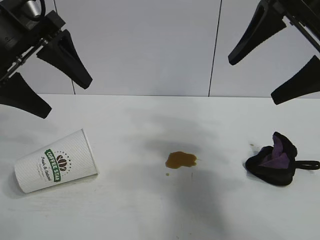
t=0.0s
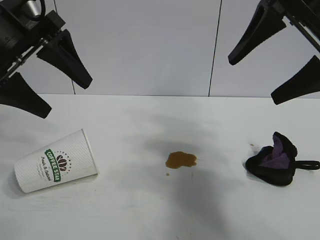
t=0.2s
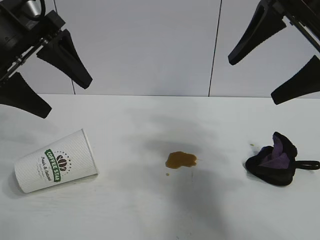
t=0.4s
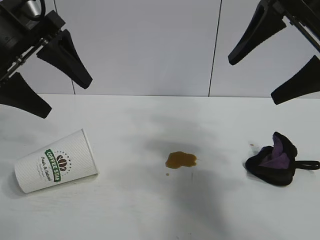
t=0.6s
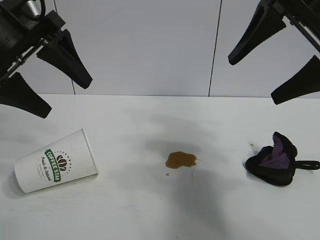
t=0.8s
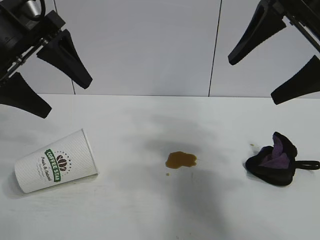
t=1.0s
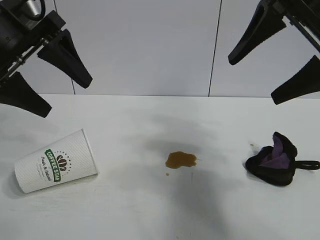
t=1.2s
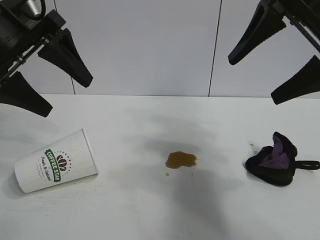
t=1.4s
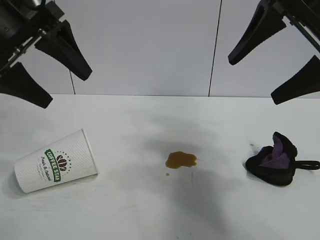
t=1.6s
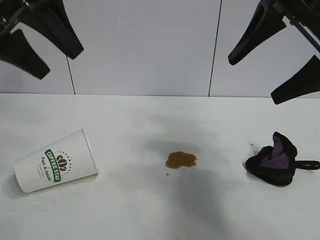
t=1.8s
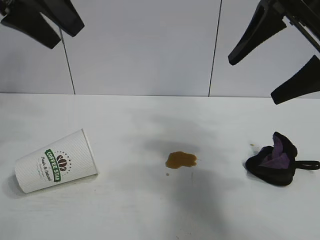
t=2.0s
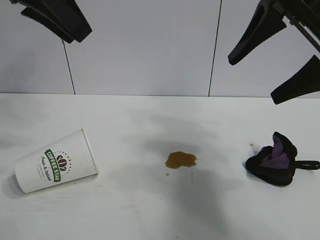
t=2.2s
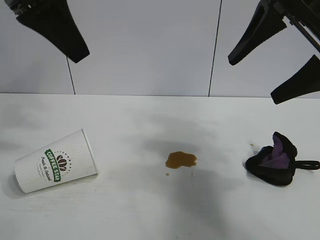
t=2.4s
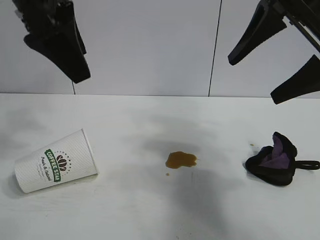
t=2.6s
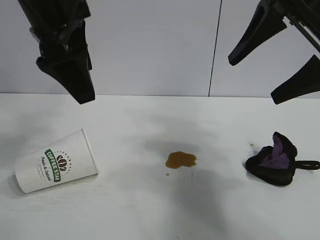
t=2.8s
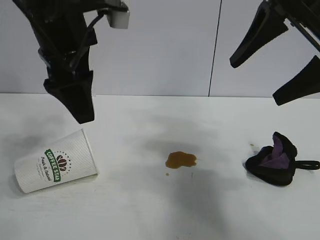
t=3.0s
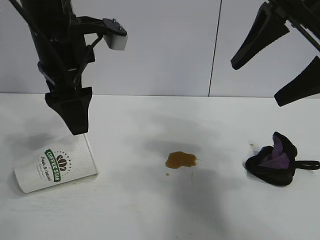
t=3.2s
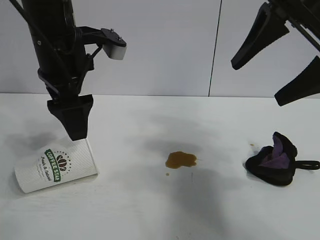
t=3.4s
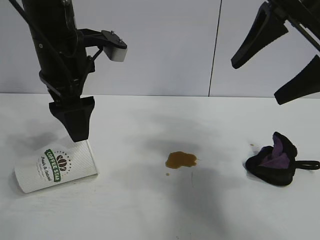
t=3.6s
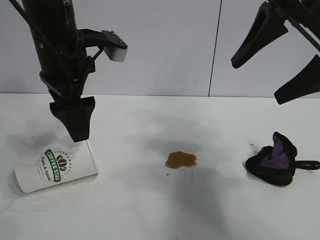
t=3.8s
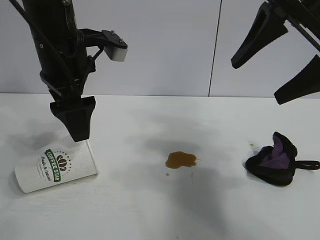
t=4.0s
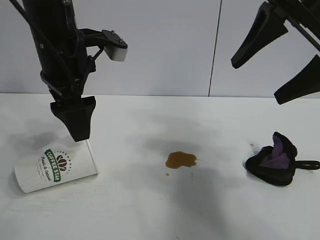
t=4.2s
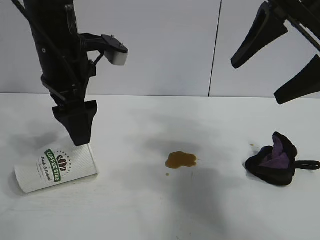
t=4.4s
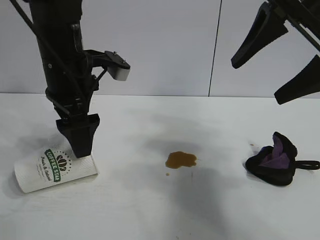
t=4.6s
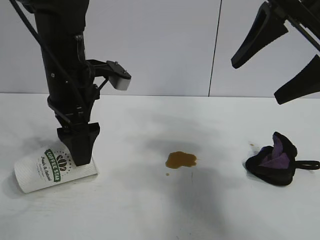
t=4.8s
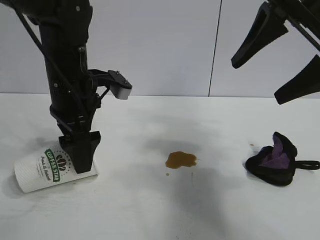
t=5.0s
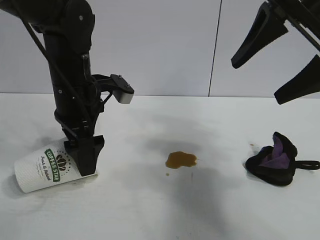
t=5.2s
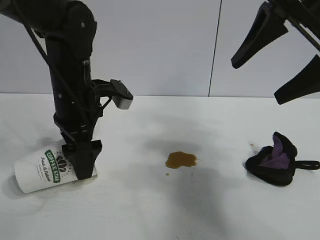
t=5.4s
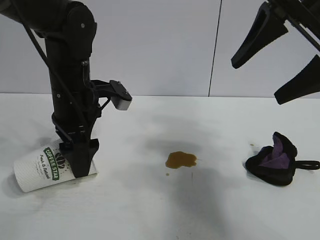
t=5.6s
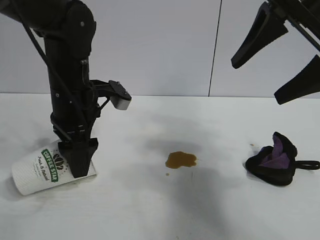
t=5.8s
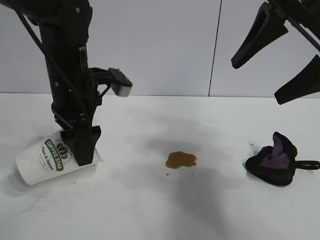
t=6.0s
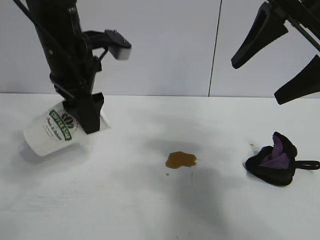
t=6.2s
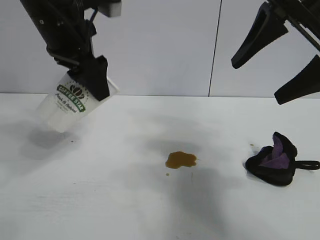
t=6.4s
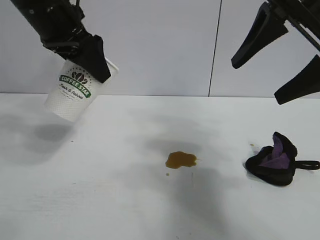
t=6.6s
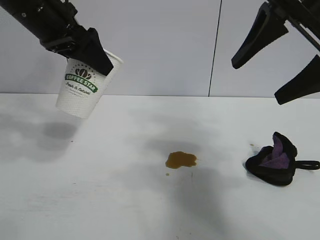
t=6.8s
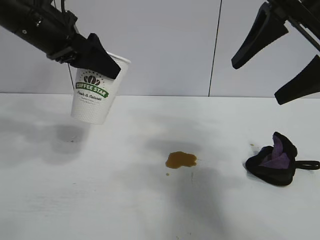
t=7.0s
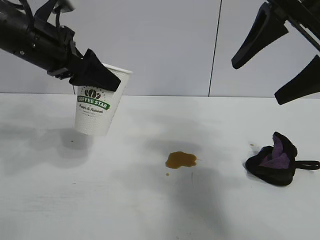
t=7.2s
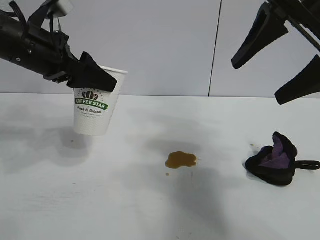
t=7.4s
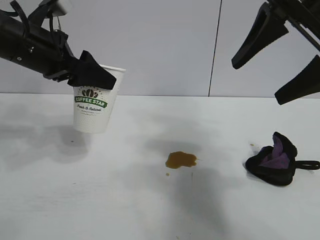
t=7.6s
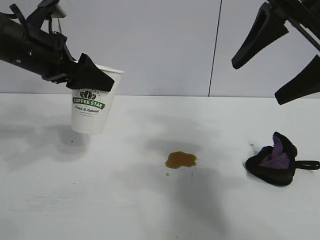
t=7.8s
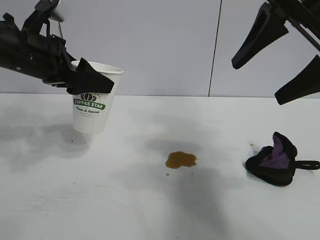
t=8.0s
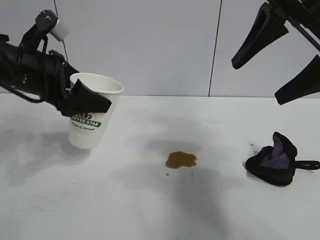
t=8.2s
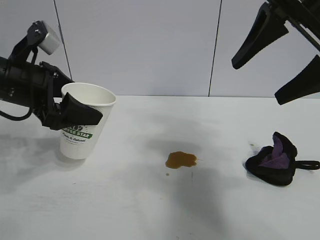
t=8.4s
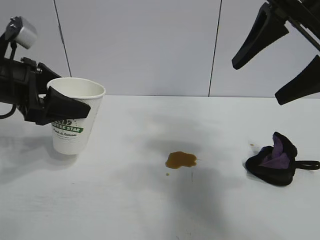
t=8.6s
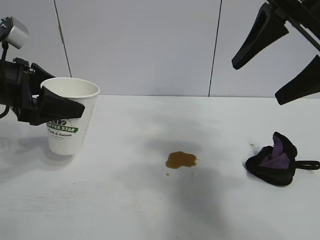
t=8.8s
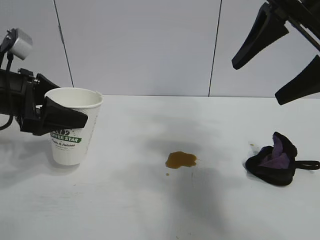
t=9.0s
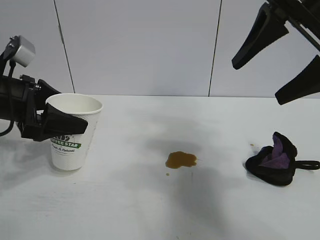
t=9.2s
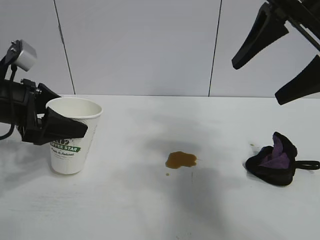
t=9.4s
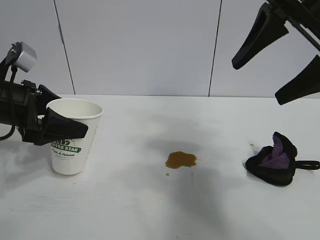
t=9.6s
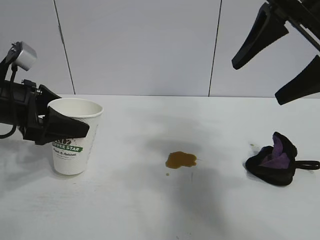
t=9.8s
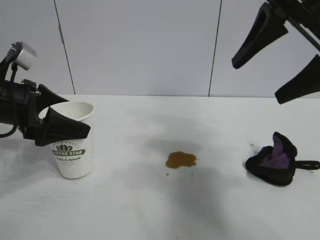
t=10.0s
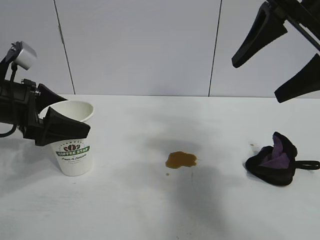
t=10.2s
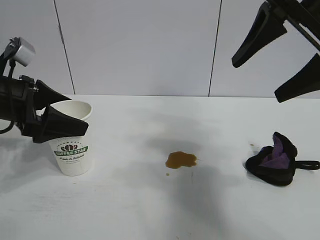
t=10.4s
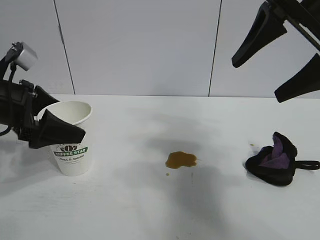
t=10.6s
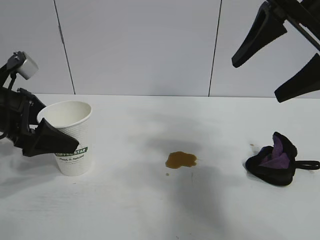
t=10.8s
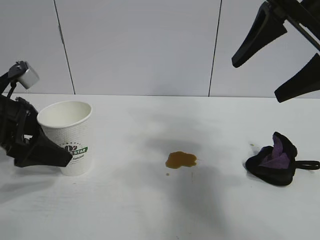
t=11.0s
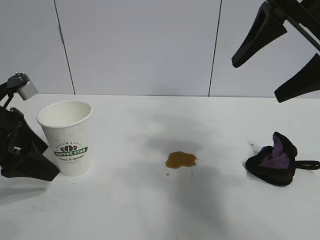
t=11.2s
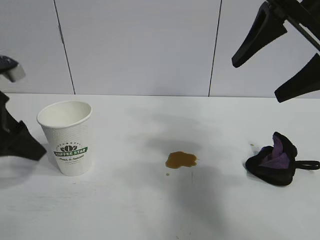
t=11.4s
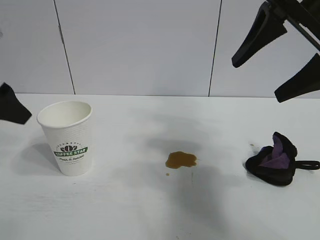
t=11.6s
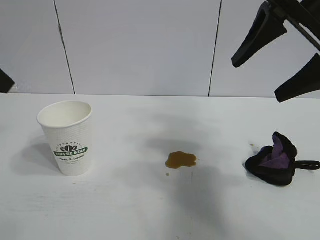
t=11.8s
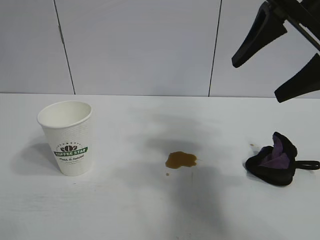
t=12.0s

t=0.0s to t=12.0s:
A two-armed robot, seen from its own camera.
Task of the whole recording: the left gripper pick up the fallen cup and place it upright, the right gripper grasp the black rag and wipe the stain on the table, the right gripper put the black rag back in its original position.
Step, t=1.4s to t=5.6s: Grasp the paper cup with left gripper.
Step, t=5.8s to t=10.4s: Stand the paper cup upright with left gripper.

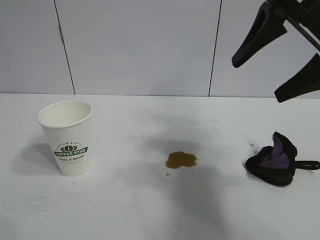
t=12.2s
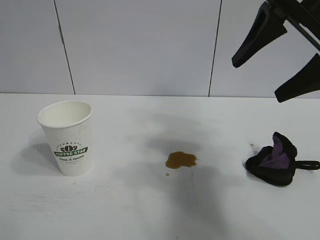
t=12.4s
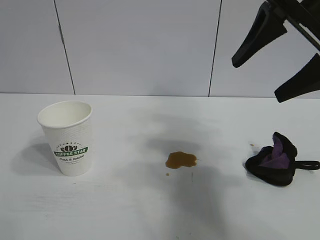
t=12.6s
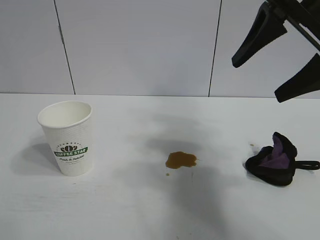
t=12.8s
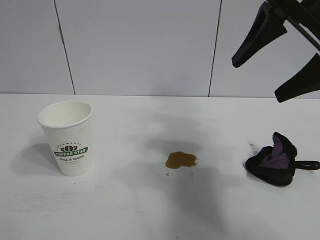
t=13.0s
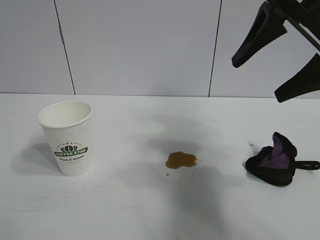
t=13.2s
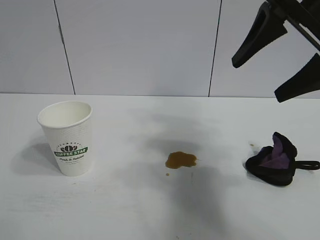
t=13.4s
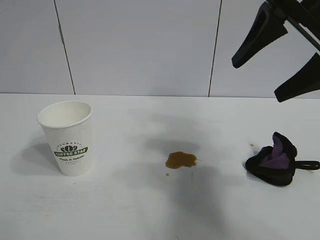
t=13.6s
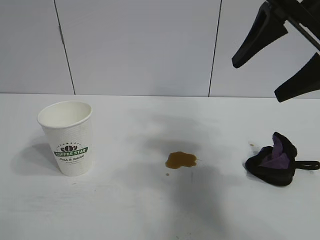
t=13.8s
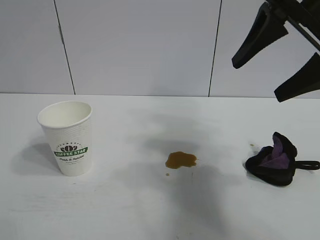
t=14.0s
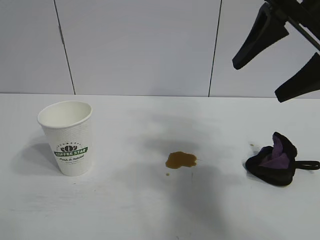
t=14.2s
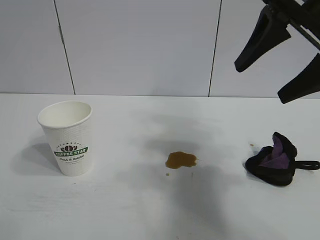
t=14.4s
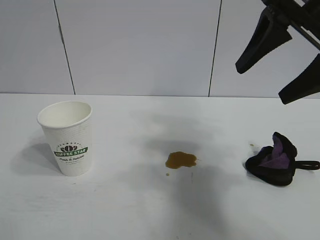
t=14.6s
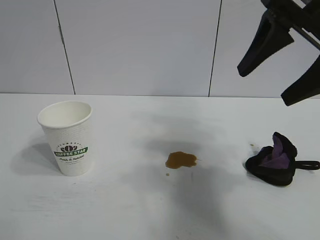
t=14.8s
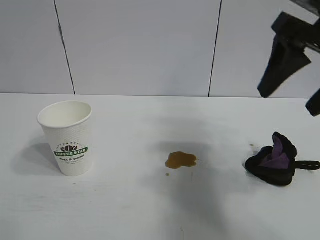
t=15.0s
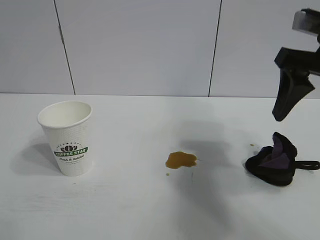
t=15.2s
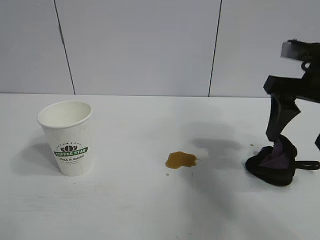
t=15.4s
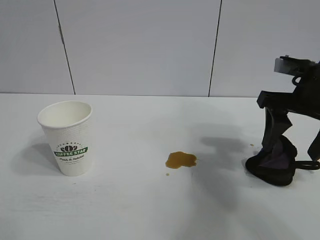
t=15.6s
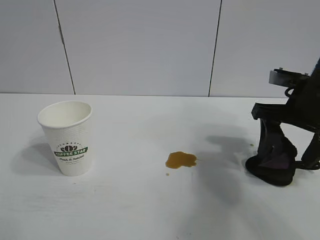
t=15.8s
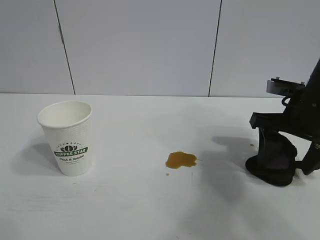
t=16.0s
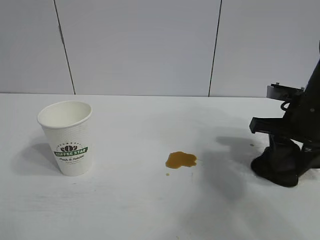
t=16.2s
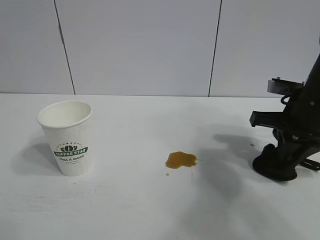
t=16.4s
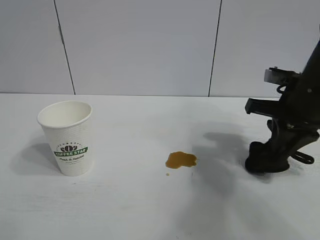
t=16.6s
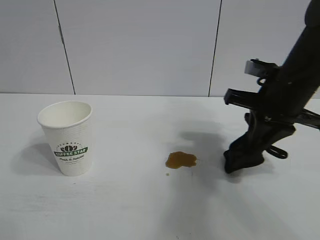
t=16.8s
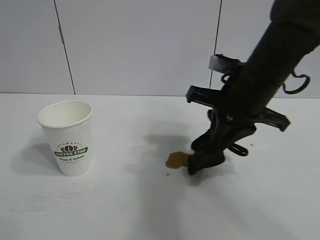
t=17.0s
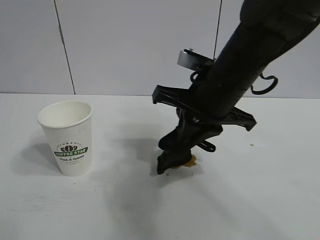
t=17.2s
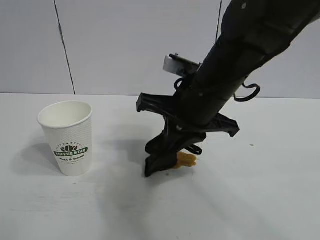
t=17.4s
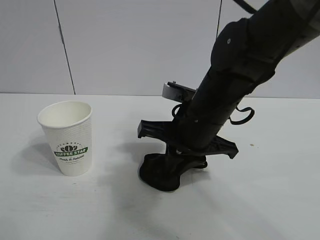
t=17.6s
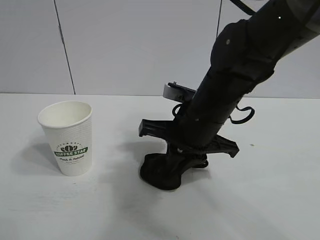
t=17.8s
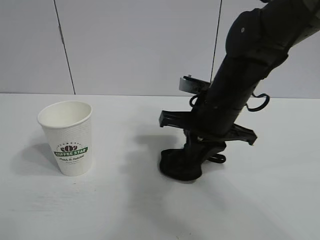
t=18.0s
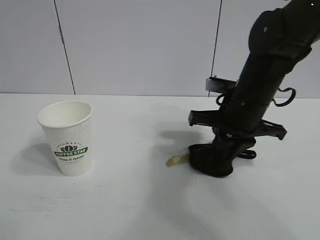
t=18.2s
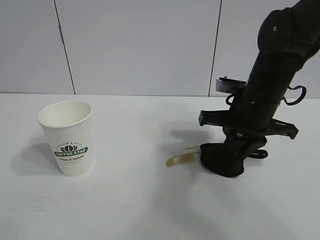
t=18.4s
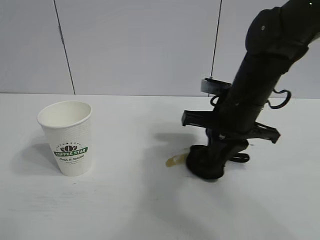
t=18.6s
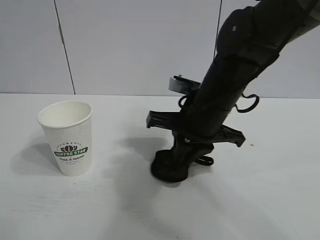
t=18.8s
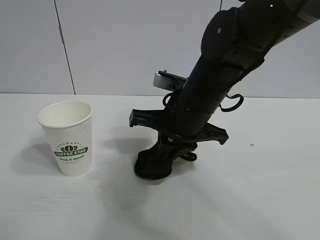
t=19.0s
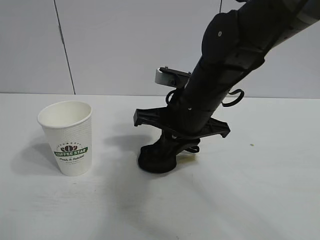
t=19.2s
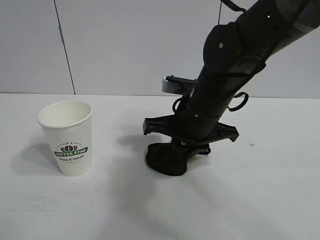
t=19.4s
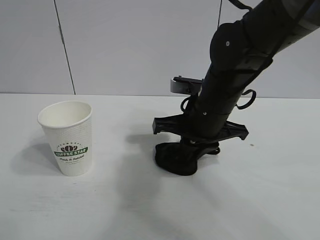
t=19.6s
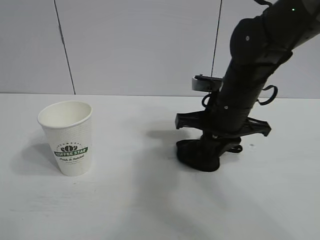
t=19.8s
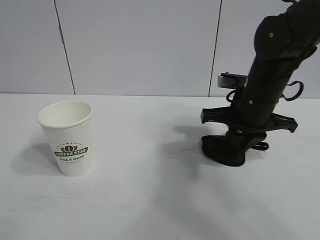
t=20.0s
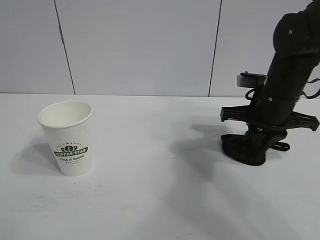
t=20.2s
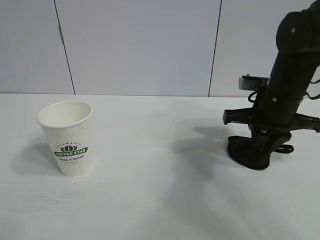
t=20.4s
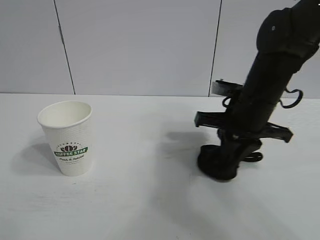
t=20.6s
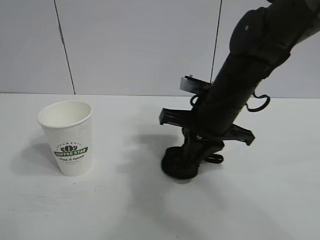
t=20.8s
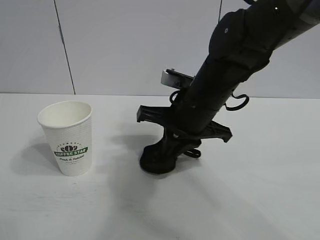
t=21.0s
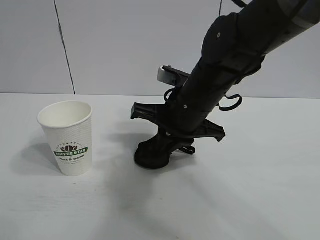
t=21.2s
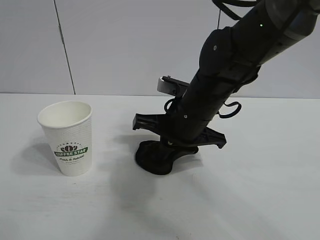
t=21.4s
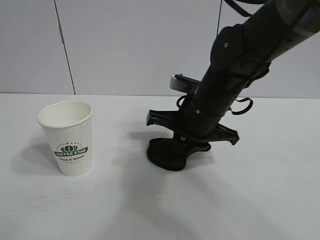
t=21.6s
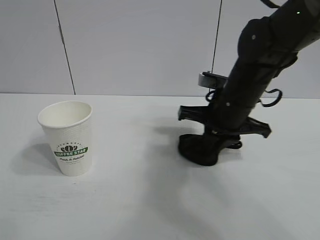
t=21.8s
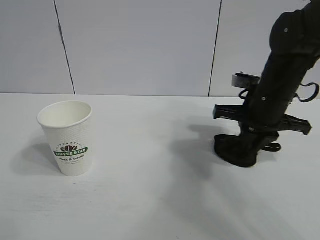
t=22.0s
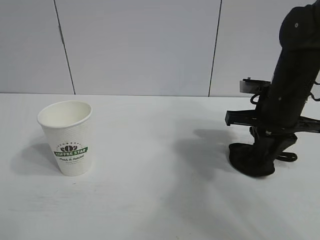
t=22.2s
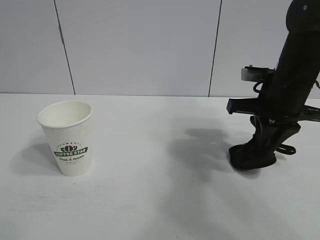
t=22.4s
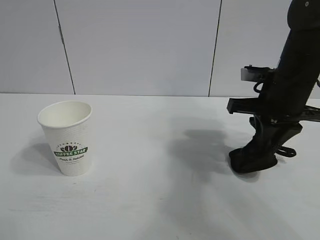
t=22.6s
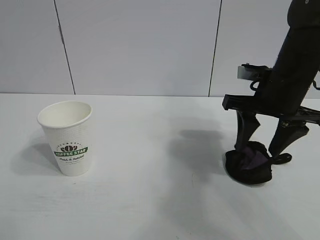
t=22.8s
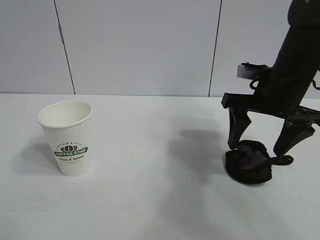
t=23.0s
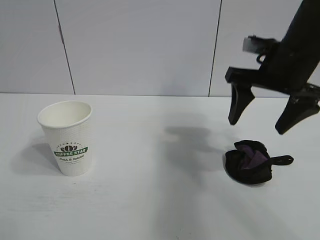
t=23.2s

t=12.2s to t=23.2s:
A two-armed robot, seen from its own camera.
Task of the whole recording: the left gripper pick up the fallen cup and place it upright, the right gripper grasp the black rag and wipe the stain on the table, the right gripper put the black rag back in its original position.
Step, t=12.2s to t=16.2s: Grasp the rag with right gripper.
Step, t=16.4s to t=22.0s: Wipe the stains off the table with the rag with right gripper.
Step, t=22.4s to t=22.8s: Place the rag on the table with right gripper.
